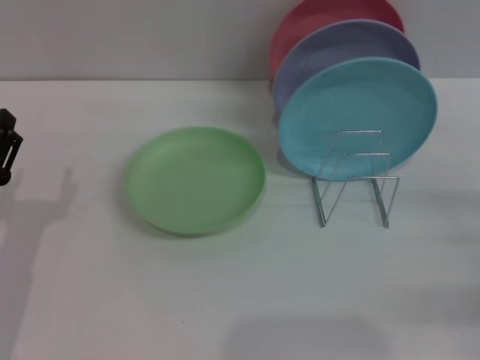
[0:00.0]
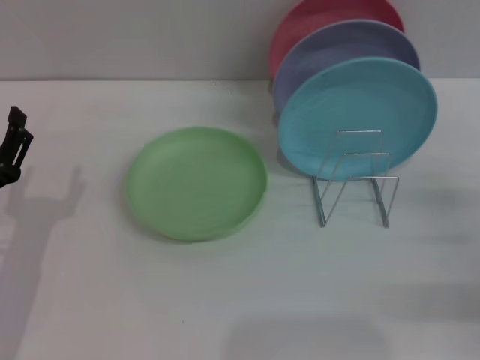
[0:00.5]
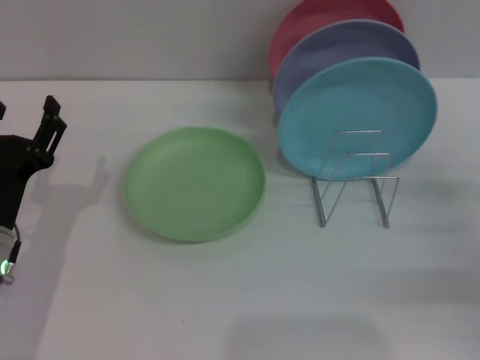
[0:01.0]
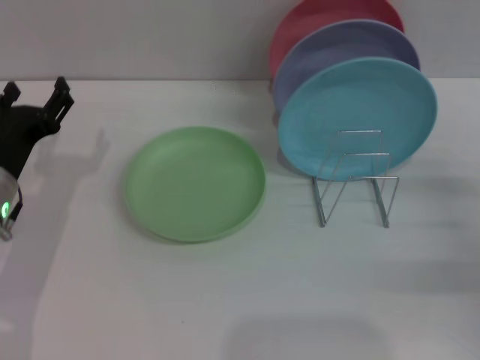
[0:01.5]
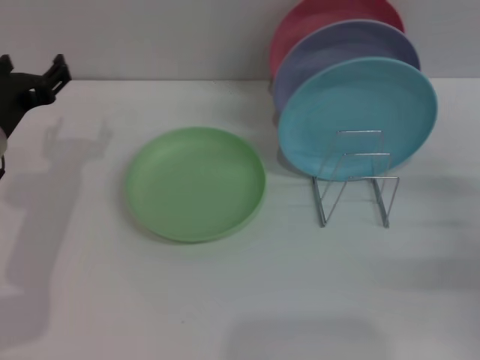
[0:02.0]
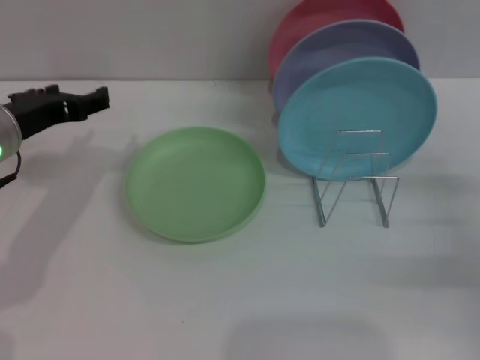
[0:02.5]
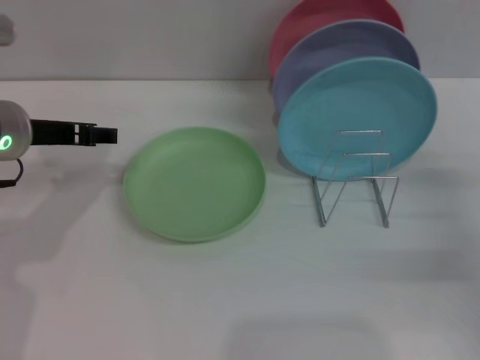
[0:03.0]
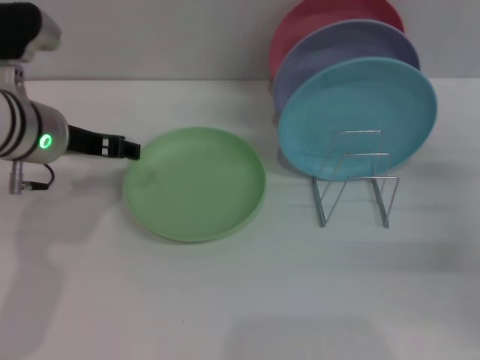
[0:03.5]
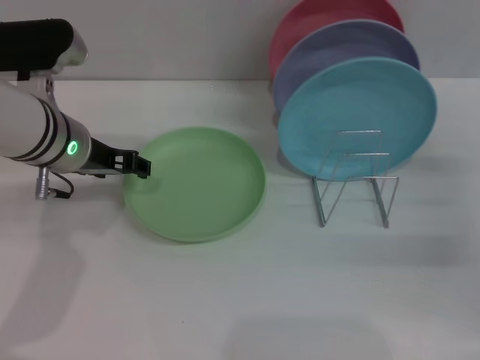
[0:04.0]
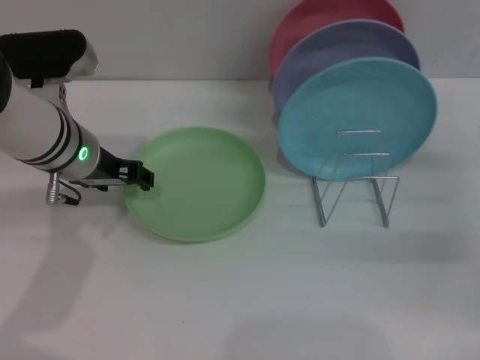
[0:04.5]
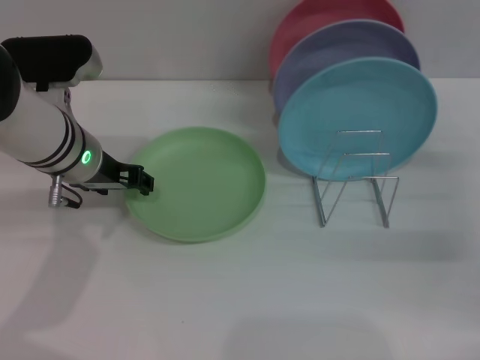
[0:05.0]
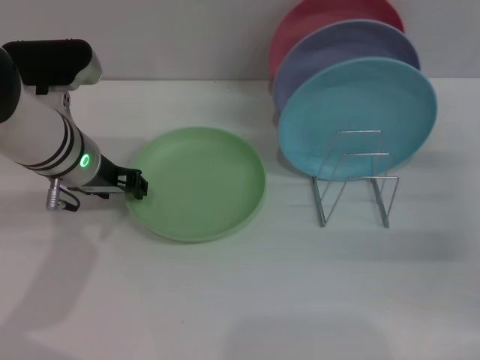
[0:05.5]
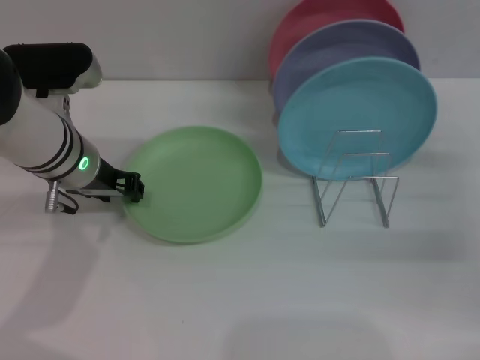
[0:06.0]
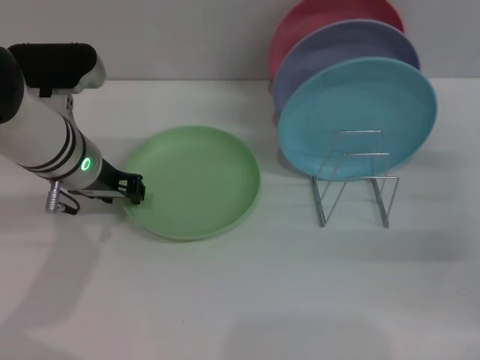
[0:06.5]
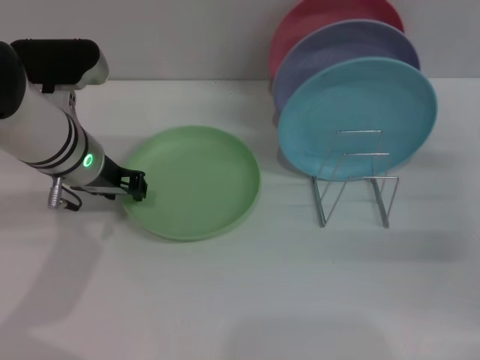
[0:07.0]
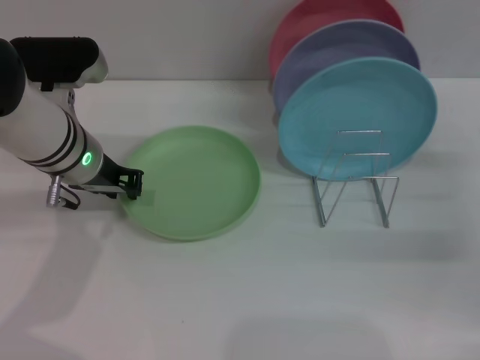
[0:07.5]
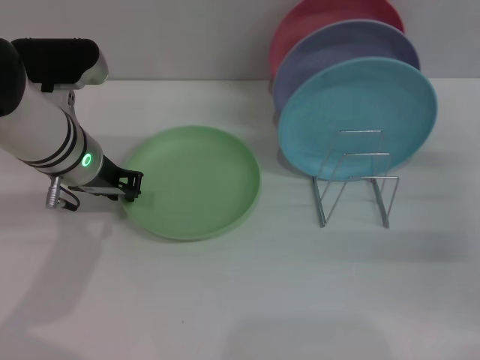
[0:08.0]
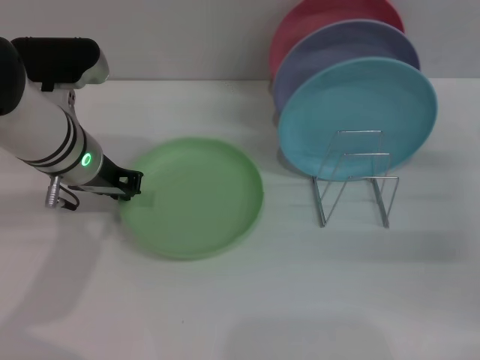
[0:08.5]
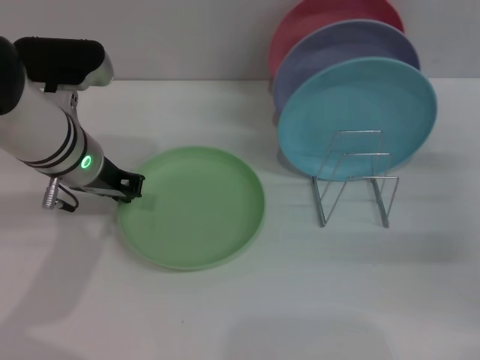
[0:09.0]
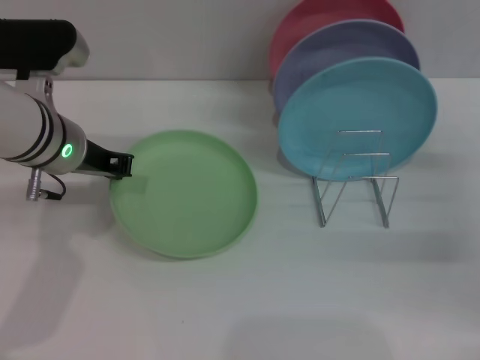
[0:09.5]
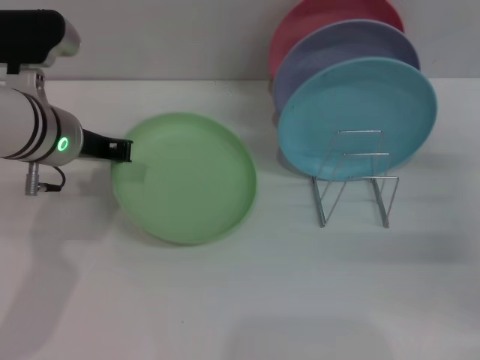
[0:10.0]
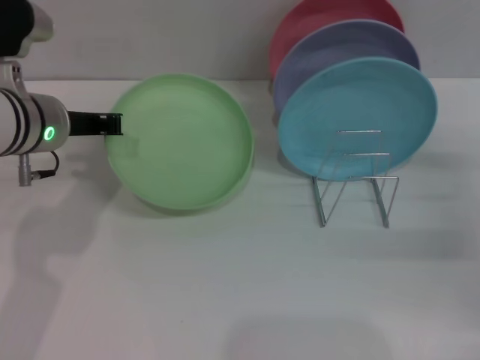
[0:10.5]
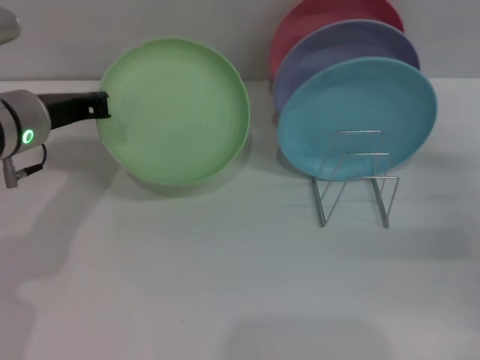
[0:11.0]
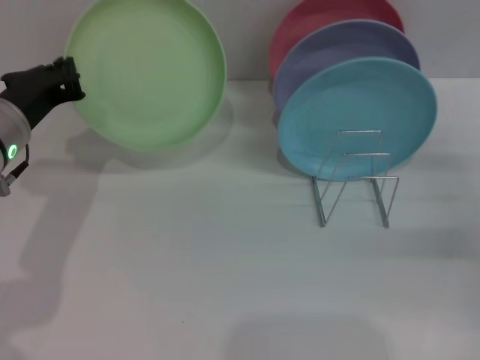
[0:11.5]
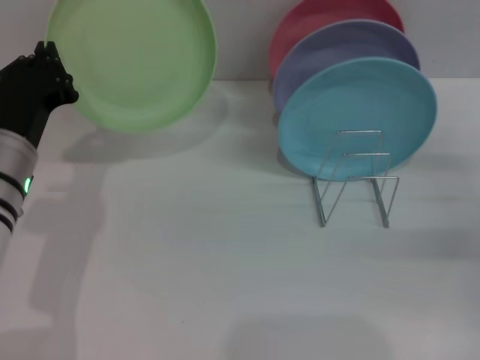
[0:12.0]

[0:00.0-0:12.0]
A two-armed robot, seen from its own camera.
Task of the whole recording: Grip the plate with one hand, pass it to the other, then set it on the shelf.
0:00.0 to 0:02.0: The left gripper shifts some 15 cm forward and upward.
0:02.0 to 0:04.0: The left gripper heads to the right, covering approximately 5 cm.
0:04.0 to 0:06.0: The grippers make only small movements.
0:06.0 to 0:08.0: The left gripper closes.
0:08.0 to 0:10.0: The grippers move only a little.
0:10.0 to 0:12.0: The left gripper travels backward by about 5 cm.

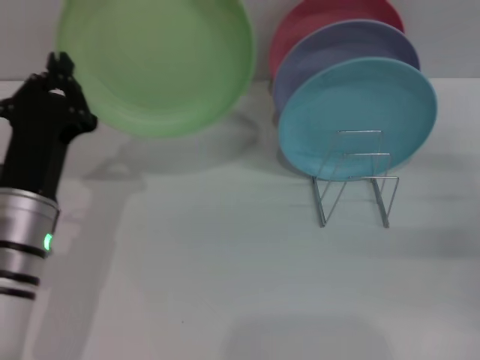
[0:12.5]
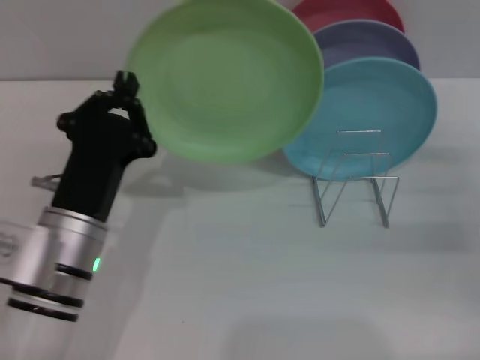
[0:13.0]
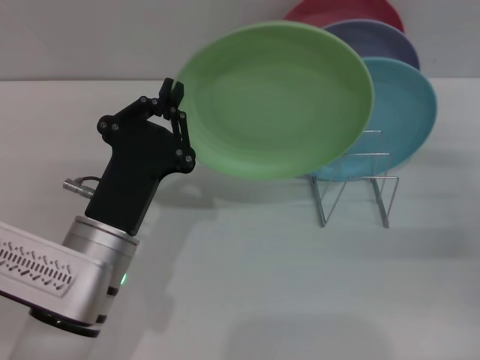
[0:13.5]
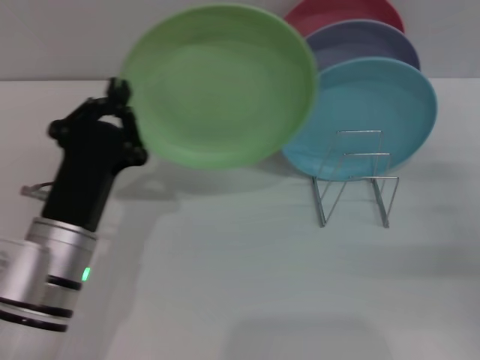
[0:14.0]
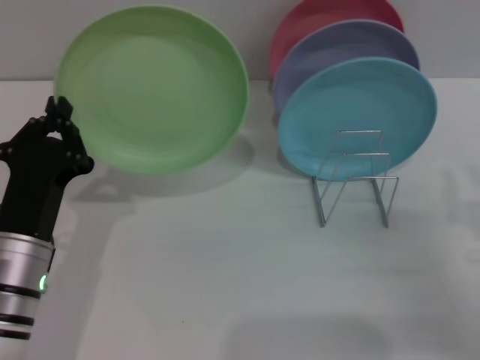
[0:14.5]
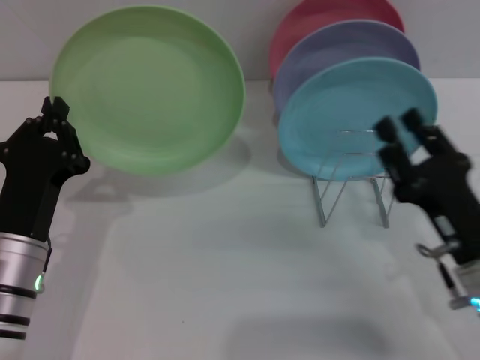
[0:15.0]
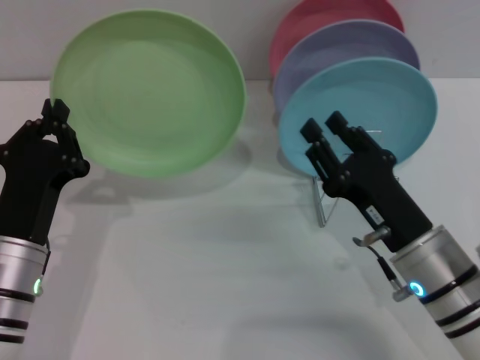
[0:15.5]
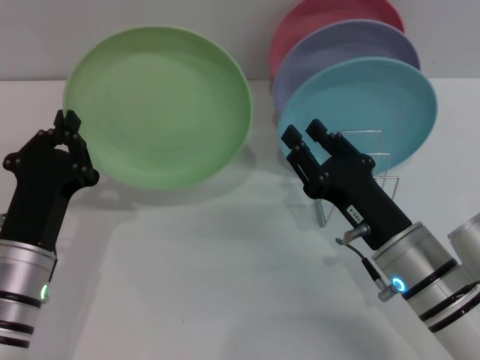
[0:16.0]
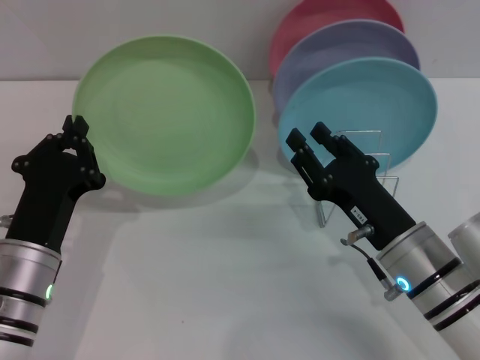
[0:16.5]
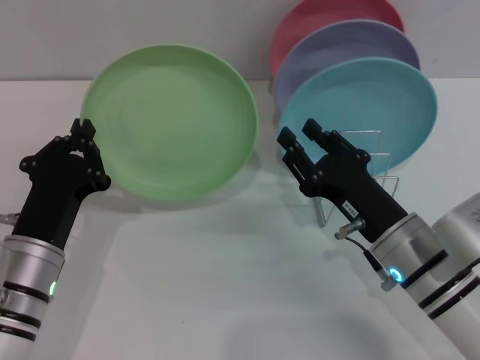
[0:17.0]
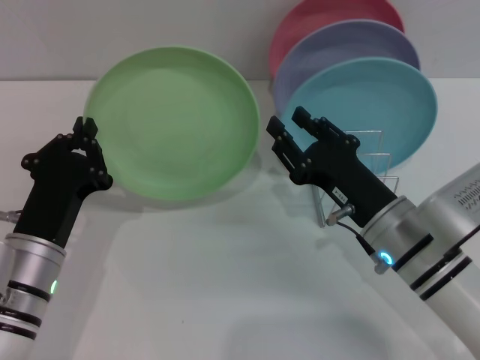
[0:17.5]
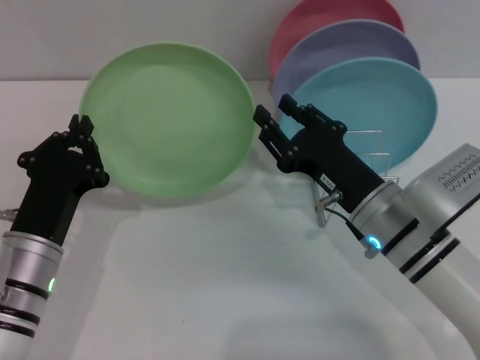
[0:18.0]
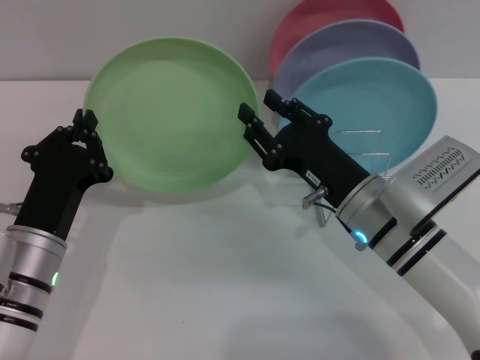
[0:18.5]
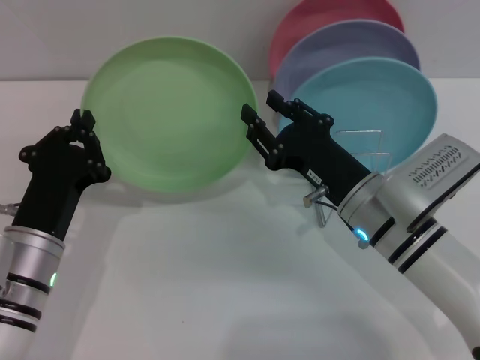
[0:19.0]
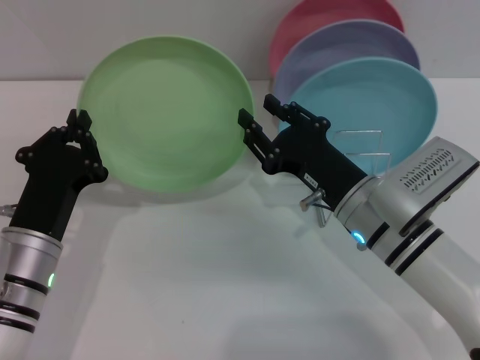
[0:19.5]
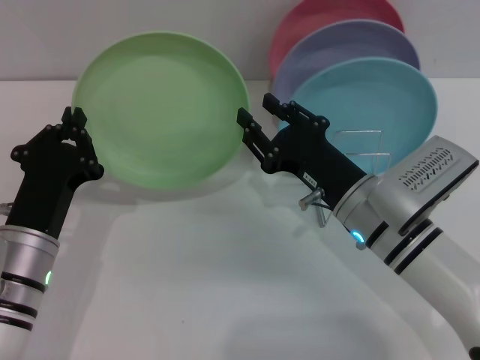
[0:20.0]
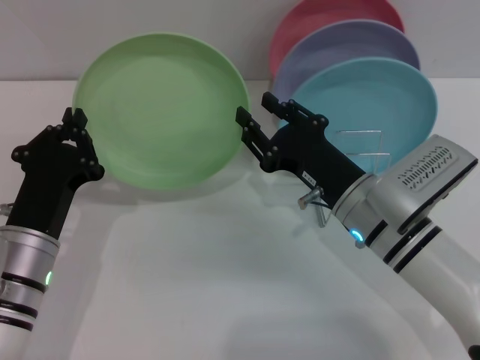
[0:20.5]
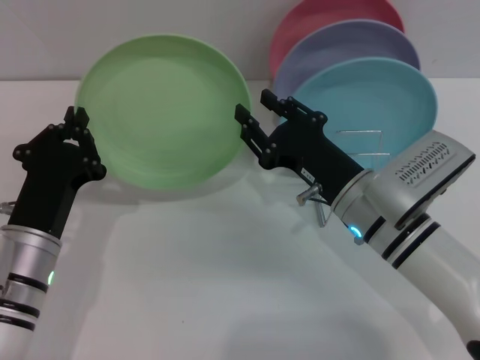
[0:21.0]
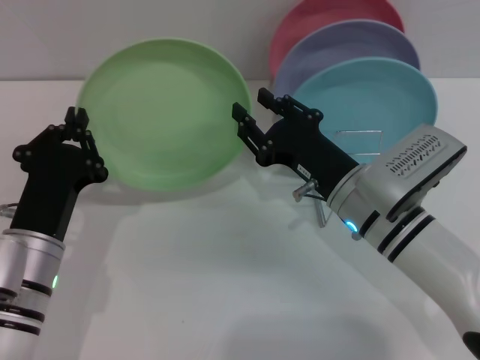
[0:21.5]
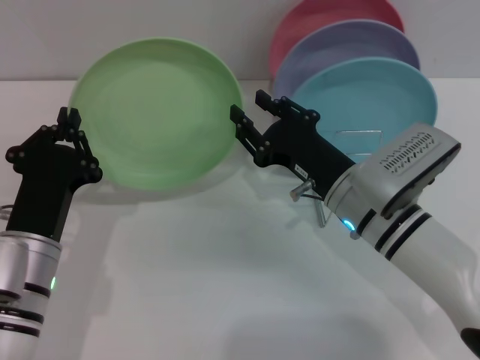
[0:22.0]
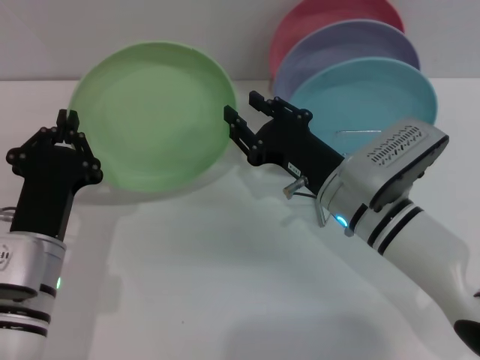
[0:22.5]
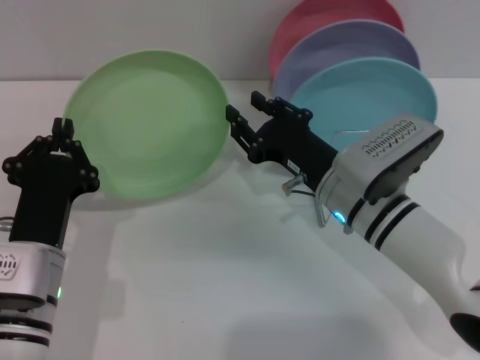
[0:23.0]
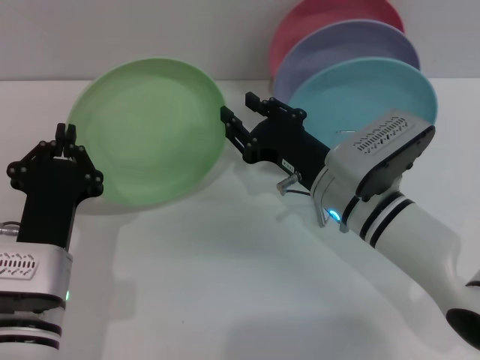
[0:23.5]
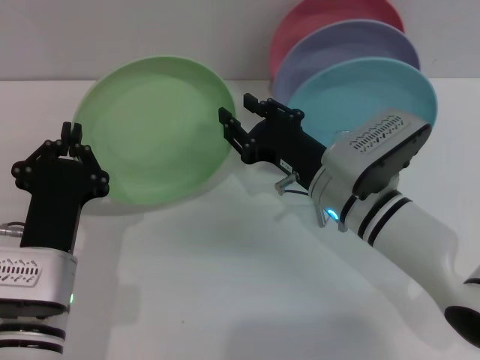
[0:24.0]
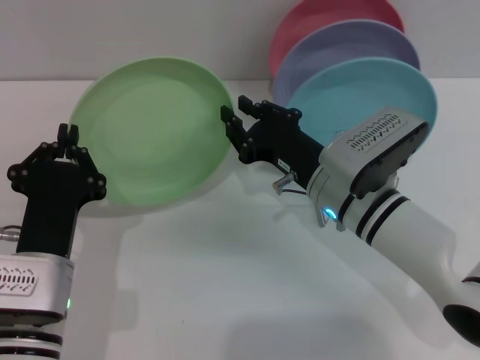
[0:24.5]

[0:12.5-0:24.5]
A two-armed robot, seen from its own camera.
Task of the whole recording: Grip the plate with one hand, pass it to the other, then set it on the shelf.
Step, 0:12.5 to 0:15.5: Pick up the plate with the left gripper.
0:12.5 to 0:14.5: The right gripper goes roughly 10 cm backward and to the left.
0:14.5 to 0:16.5: The right gripper goes approximately 15 cm to the left.
0:16.5 to 0:18.5: The right gripper shifts by approximately 5 cm.
0:18.5 to 0:20.5: The two grippers keep their place.
0:20.5 to 0:24.5: The grippers move only a little.

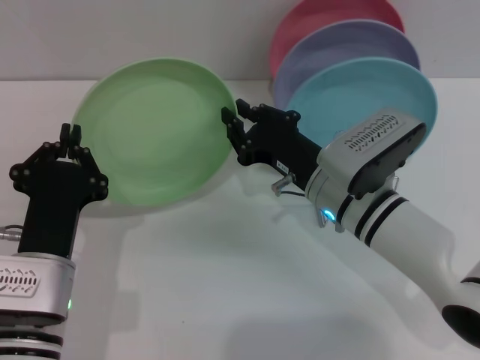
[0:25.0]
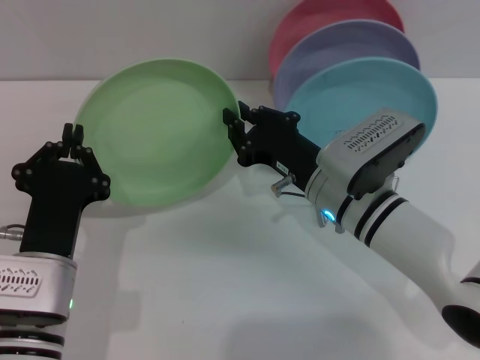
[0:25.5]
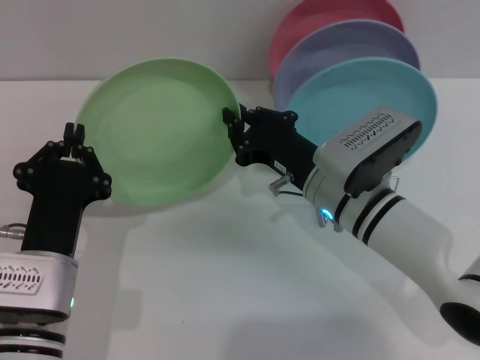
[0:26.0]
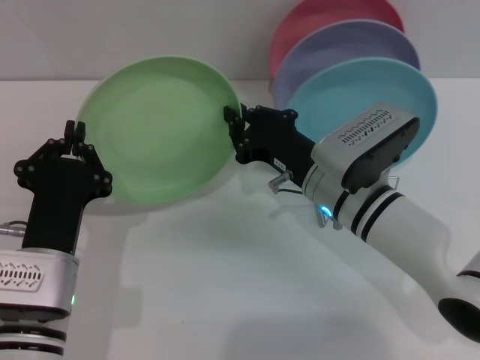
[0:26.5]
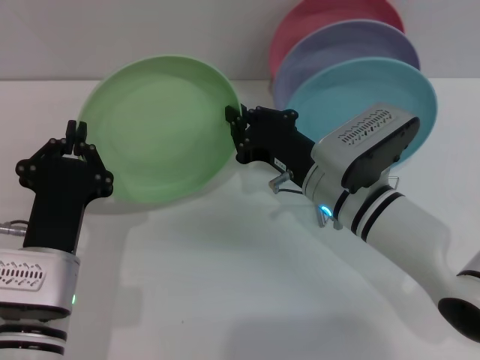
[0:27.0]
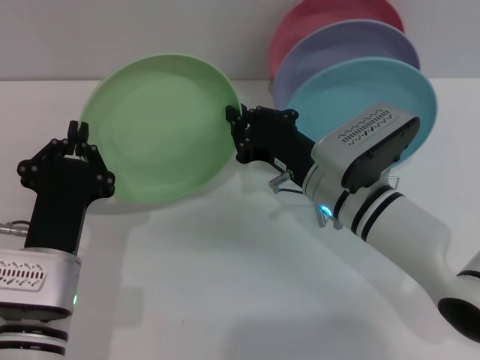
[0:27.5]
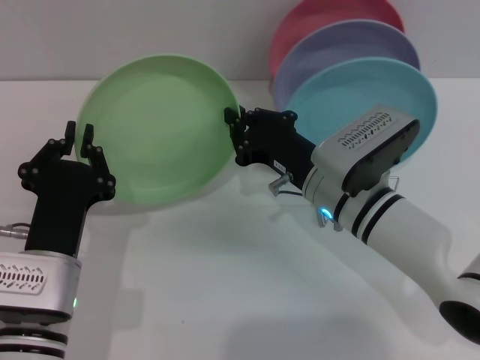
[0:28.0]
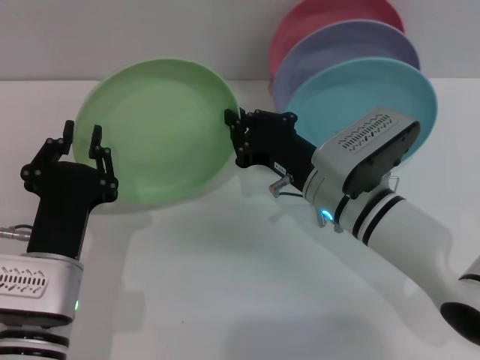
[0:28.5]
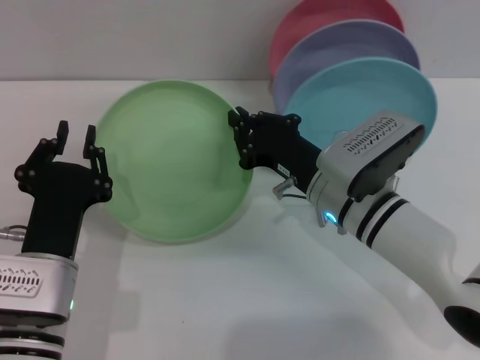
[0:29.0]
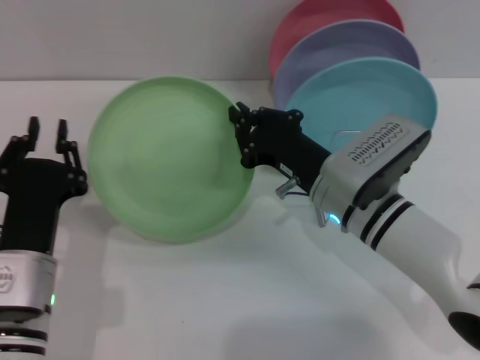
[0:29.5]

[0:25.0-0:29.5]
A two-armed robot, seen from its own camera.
Task of the whole recording: Grip the plate with one hand, pass it to the other, then set it on the shelf.
0:25.0 to 0:27.0: The right gripper closes its fingers.
0:27.0 to 0:29.5: The grippers make only small movements.
